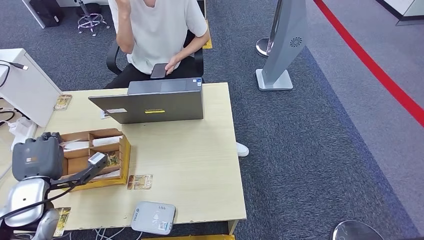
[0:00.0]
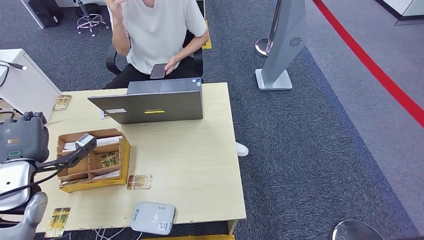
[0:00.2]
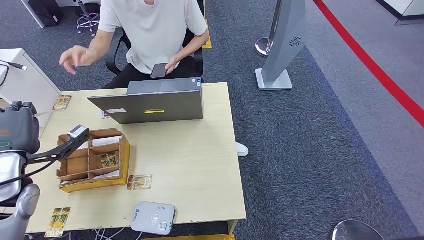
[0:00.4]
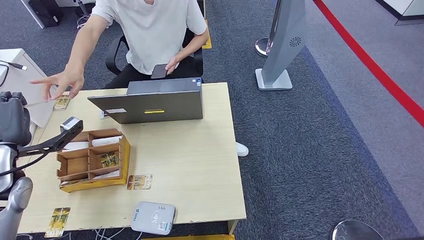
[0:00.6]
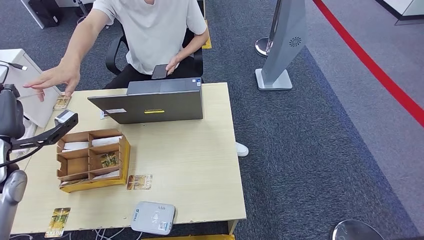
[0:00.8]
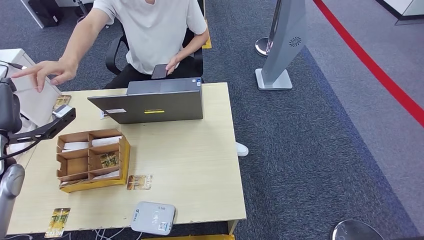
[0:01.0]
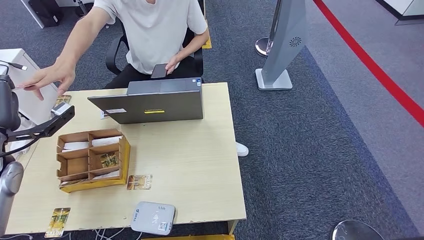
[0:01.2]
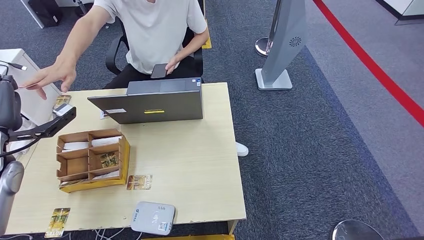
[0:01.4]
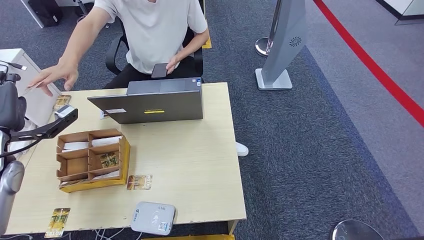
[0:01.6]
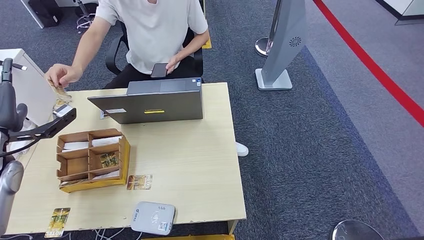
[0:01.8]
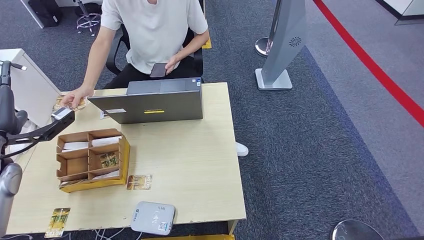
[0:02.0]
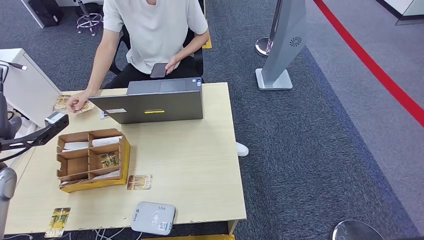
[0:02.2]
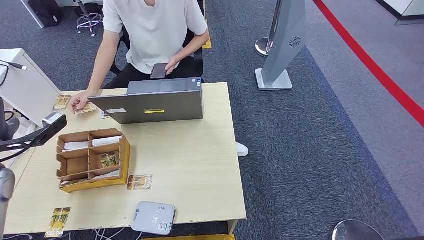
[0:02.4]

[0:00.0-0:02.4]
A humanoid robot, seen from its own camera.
Step, 0:00.6 to 0:02.4: Hand the room key to the person.
0:00.0 to 0:01.2: The left hand heads upward and forward, covering roughly 10 cm.
0:01.2 to 0:02.4: There are only small adjustments of the hands.

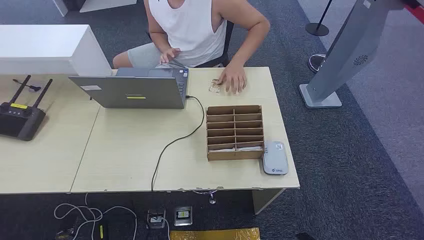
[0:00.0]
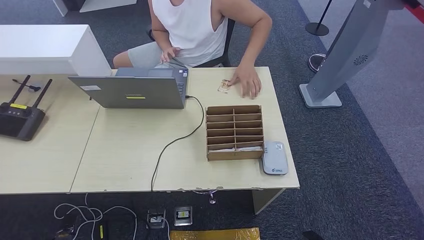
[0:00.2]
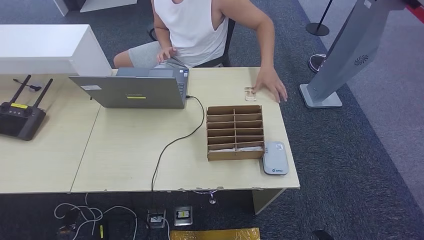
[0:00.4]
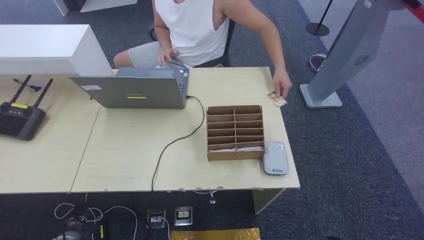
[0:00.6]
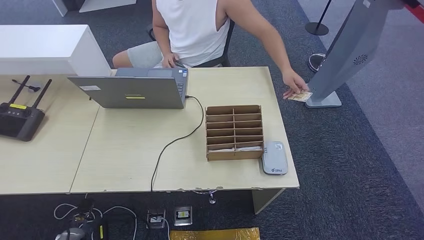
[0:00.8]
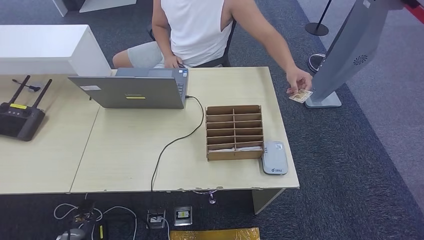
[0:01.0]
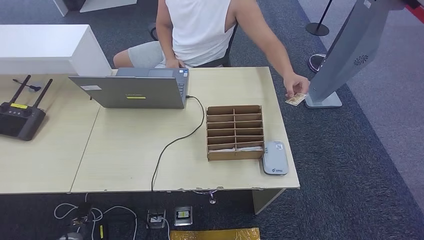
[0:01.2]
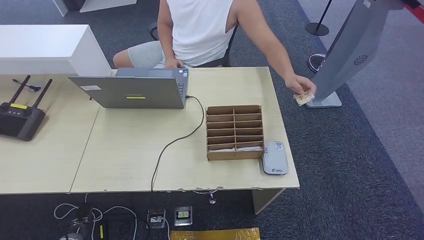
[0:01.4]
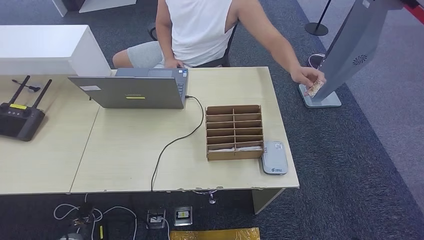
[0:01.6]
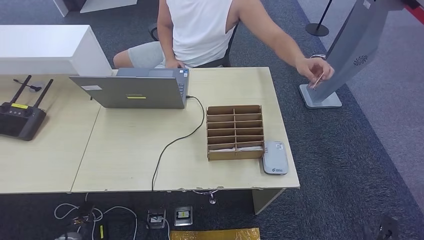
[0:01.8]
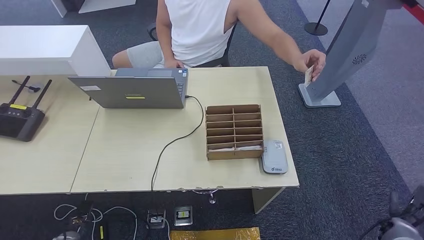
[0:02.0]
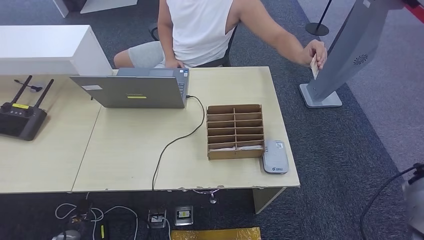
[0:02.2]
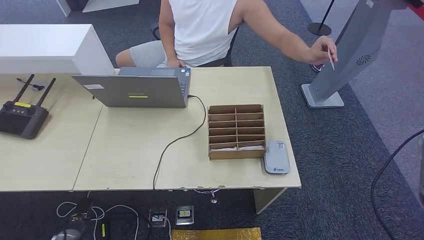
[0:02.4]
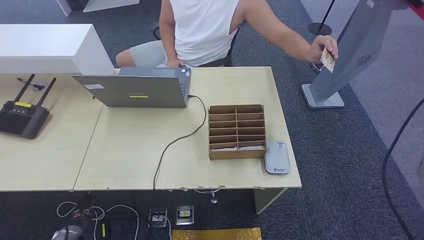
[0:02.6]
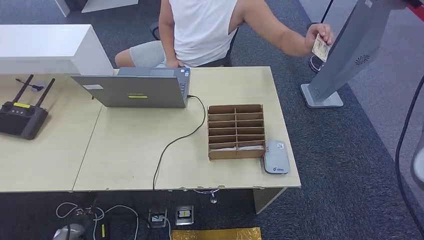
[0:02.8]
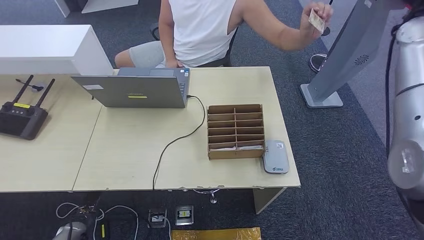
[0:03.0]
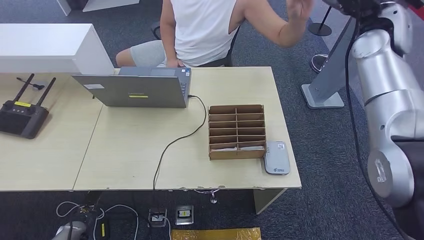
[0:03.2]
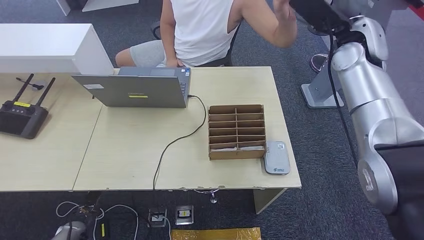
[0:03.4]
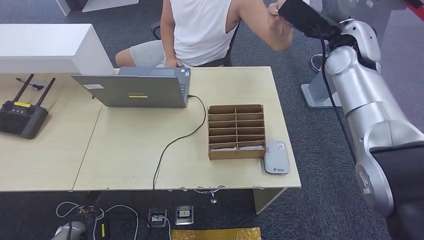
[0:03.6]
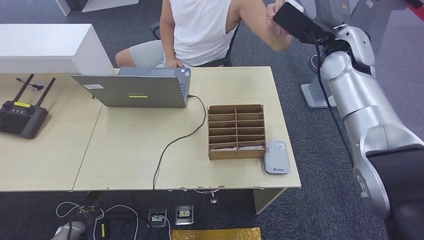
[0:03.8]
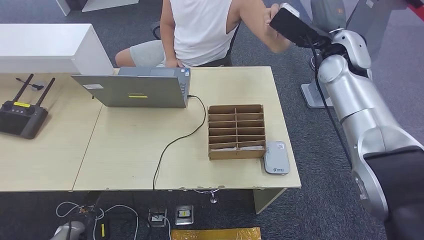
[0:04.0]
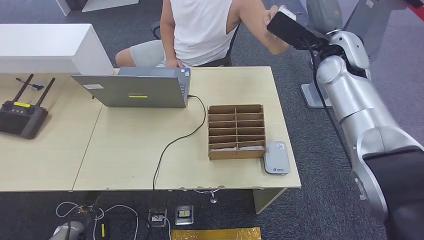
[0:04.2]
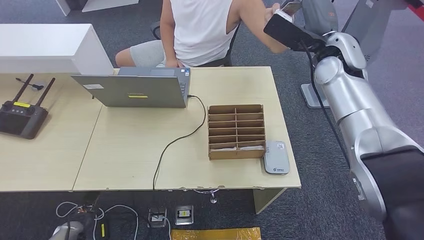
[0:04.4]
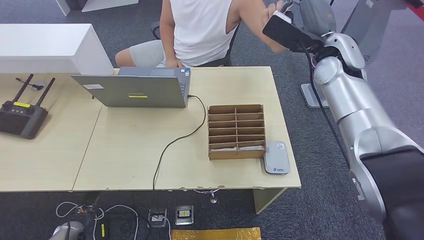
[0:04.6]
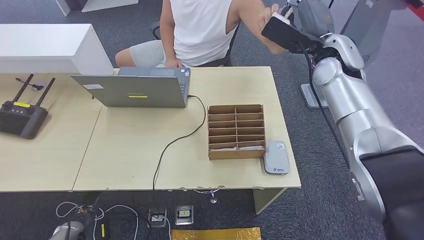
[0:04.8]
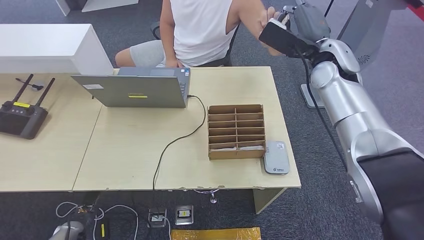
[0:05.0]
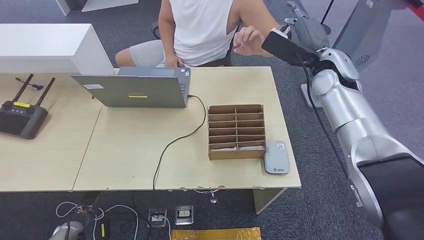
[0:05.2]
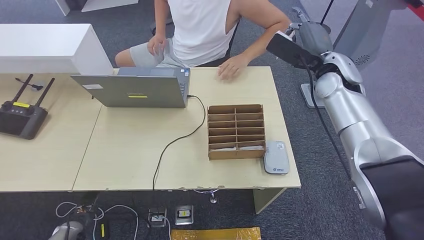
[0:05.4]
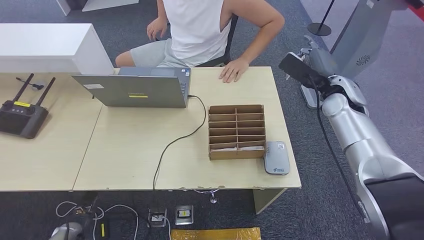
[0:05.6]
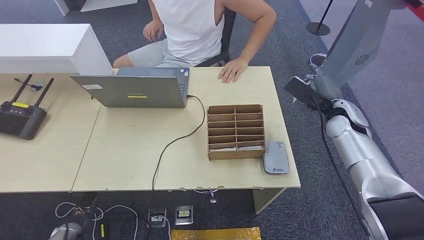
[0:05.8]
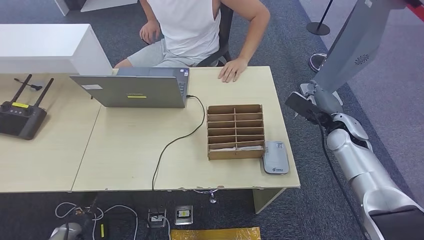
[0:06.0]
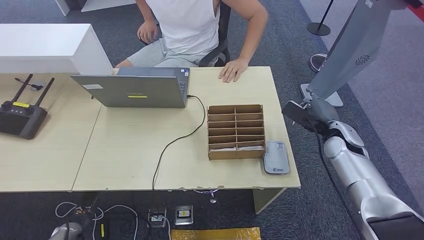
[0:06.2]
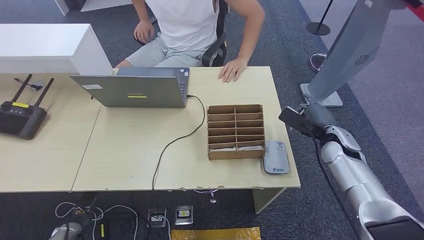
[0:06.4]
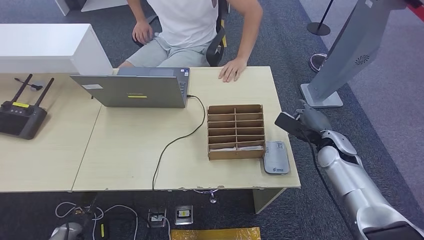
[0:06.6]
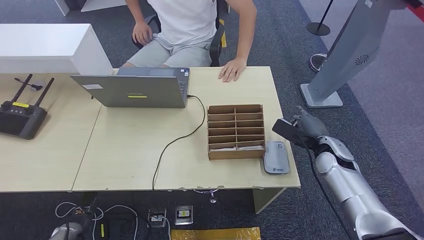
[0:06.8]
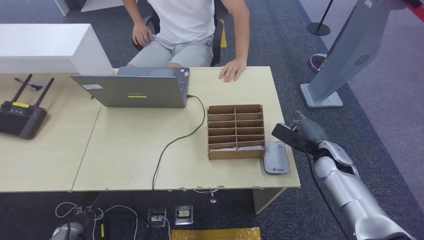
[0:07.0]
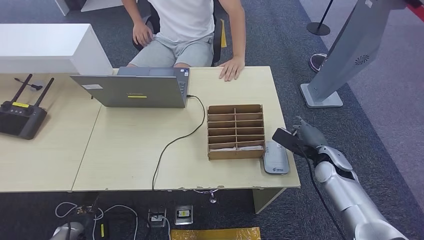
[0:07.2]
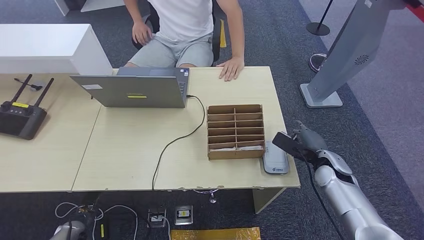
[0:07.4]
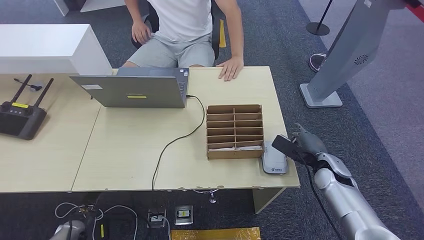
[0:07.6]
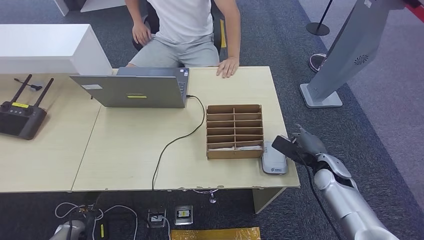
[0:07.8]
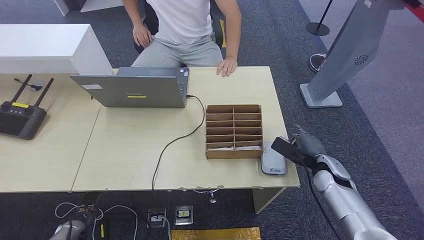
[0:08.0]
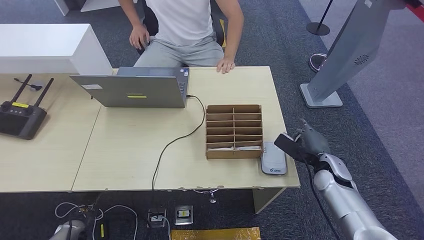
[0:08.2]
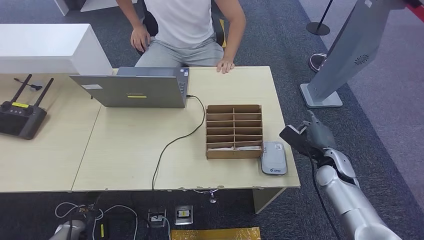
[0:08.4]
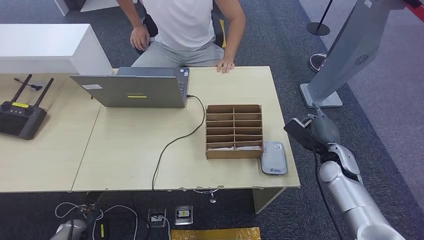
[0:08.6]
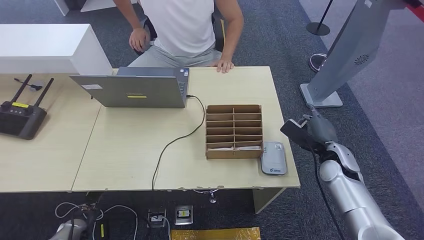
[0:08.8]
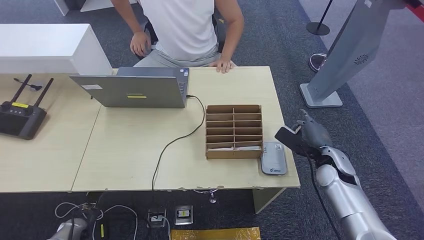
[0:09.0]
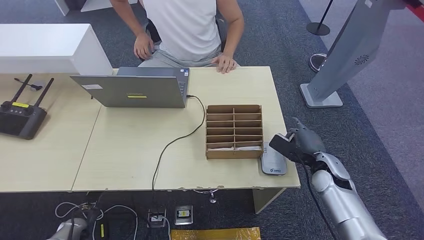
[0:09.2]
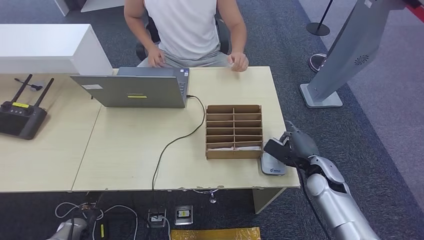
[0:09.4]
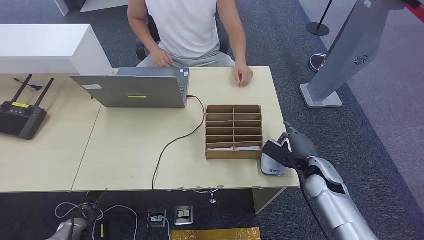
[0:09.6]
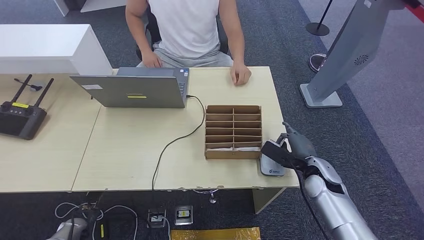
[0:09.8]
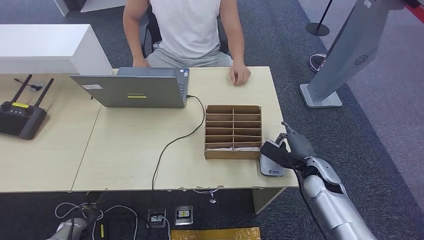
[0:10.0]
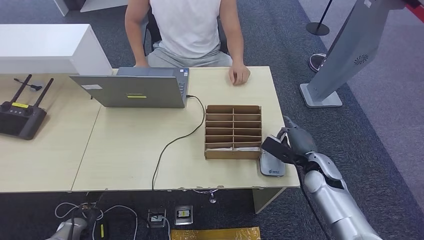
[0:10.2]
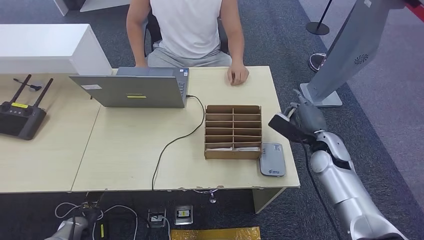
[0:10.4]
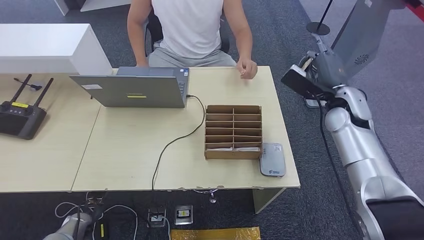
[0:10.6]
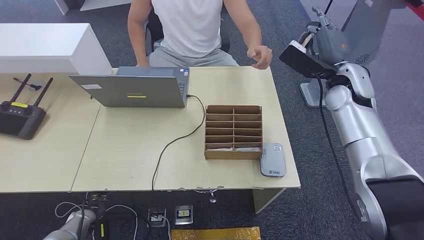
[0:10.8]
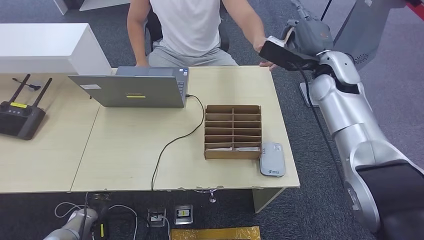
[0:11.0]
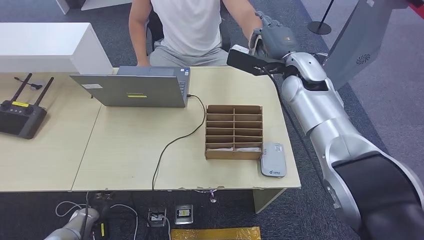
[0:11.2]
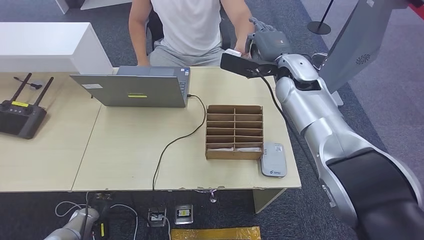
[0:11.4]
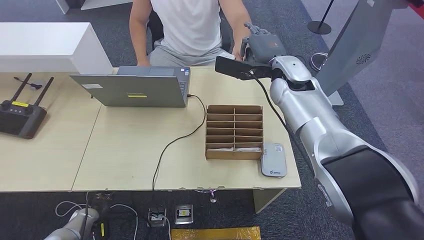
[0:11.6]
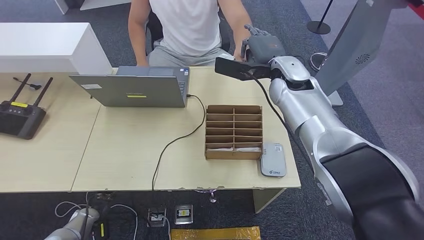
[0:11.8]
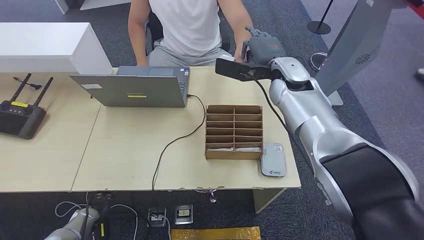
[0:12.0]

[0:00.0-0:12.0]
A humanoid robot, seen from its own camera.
Step, 0:00.0 to 0:05.2: Take the ID card from the person's hand.
Step, 0:05.4 to 0:08.2: Place the ID card on the card reader.
Step, 0:08.4 to 0:11.4: Hand the ID card to the person.
0:01.6 to 0:03.0: The right hand is displaced upward and forward by about 70 cm.
0:03.0 to 0:04.4: The right hand shifts about 15 cm to the left and downward.
0:06.0 to 0:07.6: The right hand heads downward and backward, covering approximately 10 cm.
0:07.6 to 0:09.0: The hands stay close to where they were, moving slightly.
0:09.0 to 0:10.4: The hands move only a little.
0:10.4 to 0:12.0: The right hand shifts some 25 cm upward, to the left and forward.

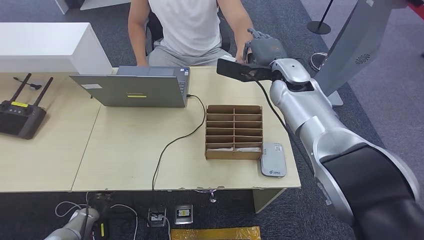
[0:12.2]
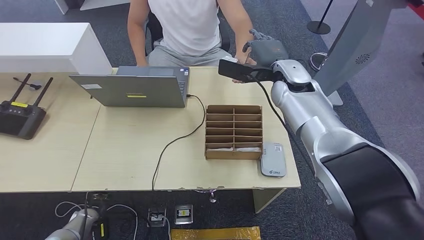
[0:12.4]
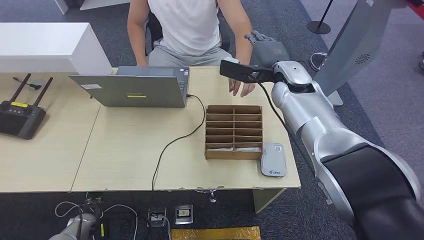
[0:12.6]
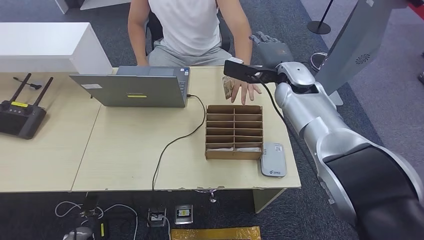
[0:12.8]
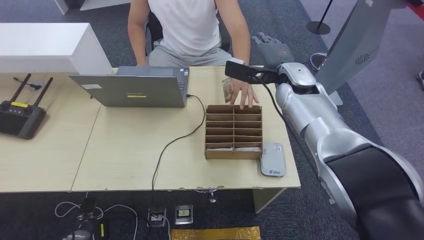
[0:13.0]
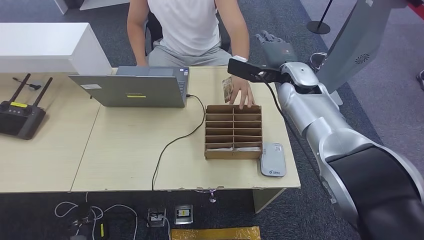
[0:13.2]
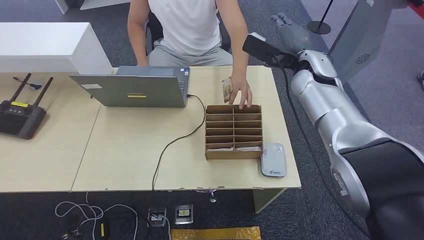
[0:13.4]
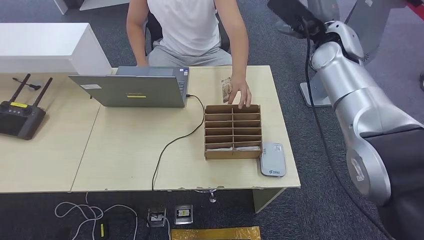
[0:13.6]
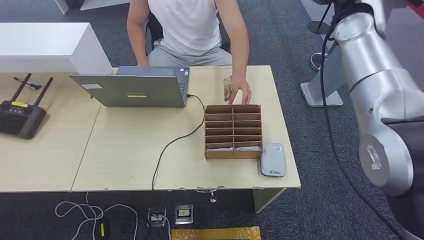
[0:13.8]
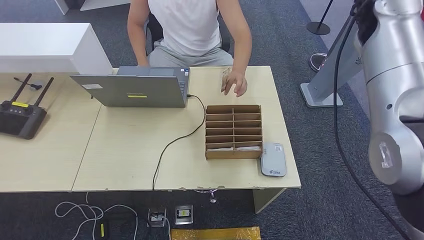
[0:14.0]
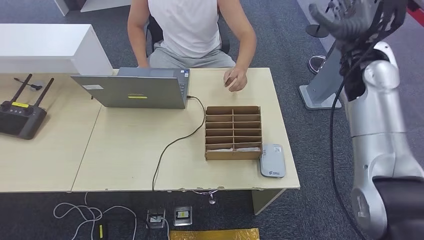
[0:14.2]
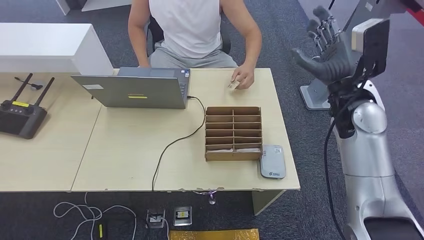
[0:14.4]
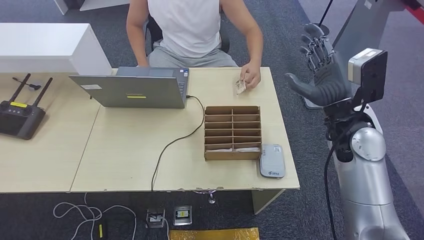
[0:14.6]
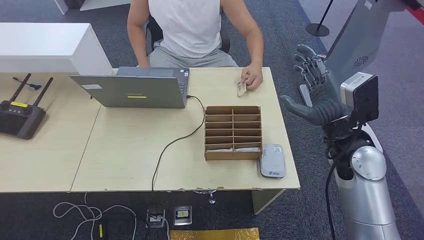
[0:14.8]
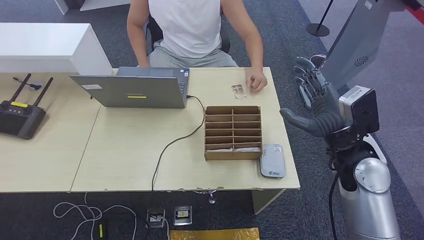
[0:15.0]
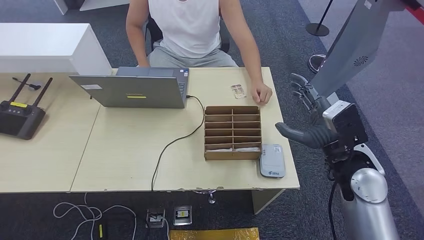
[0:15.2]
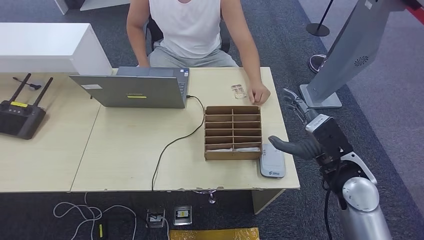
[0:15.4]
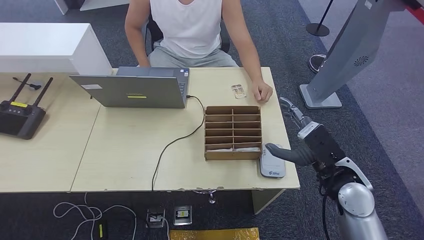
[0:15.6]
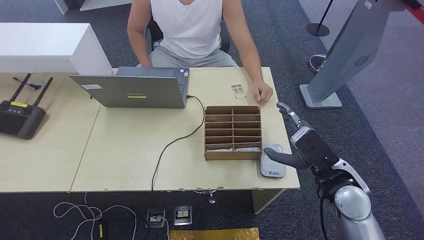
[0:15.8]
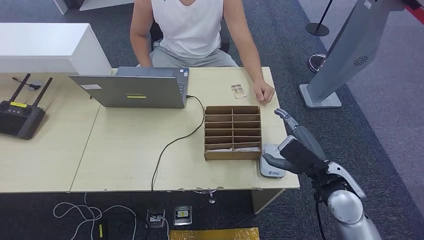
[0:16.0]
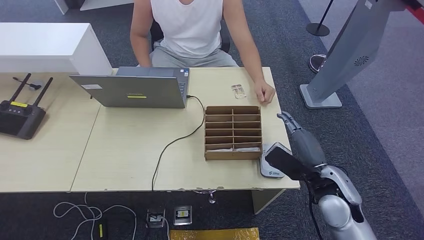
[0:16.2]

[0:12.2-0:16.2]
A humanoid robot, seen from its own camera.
0:14.8 to 0:16.2: The right hand moves downward and backward, roughly 10 cm.
